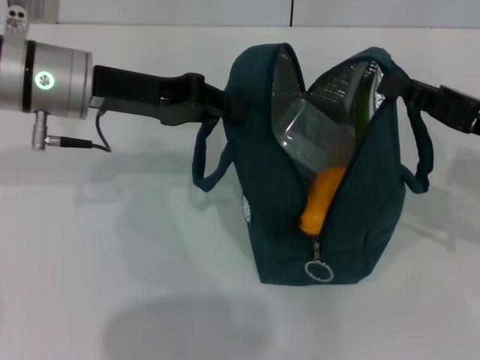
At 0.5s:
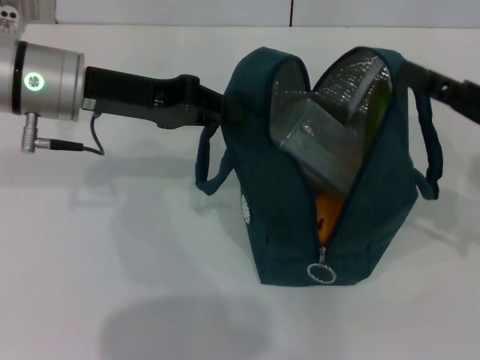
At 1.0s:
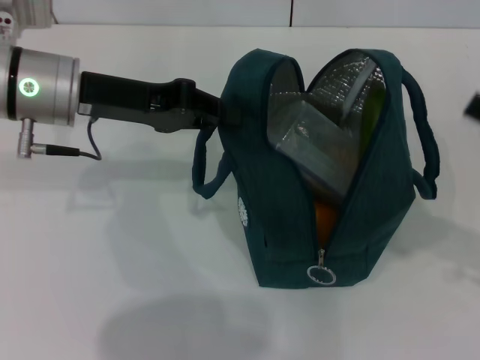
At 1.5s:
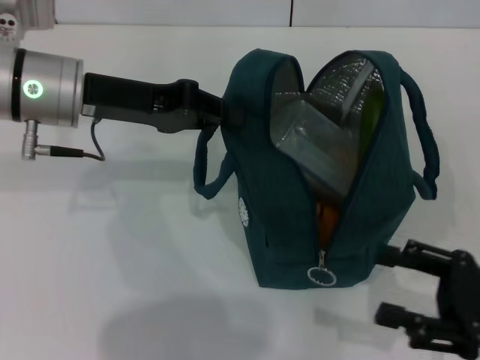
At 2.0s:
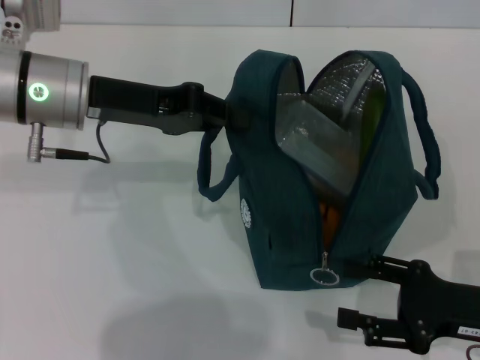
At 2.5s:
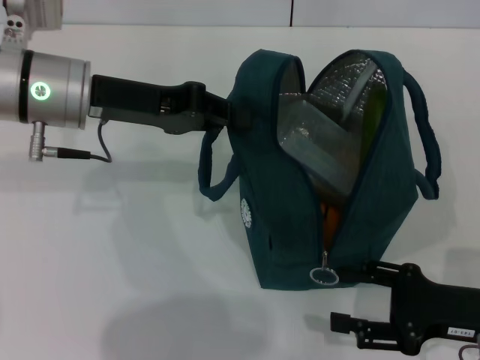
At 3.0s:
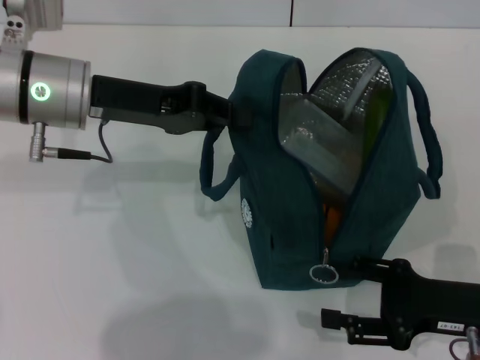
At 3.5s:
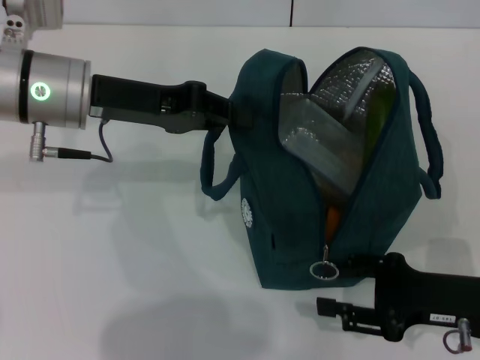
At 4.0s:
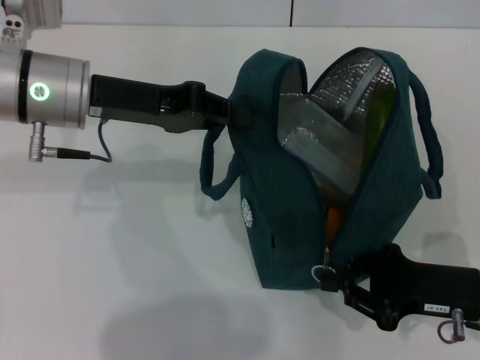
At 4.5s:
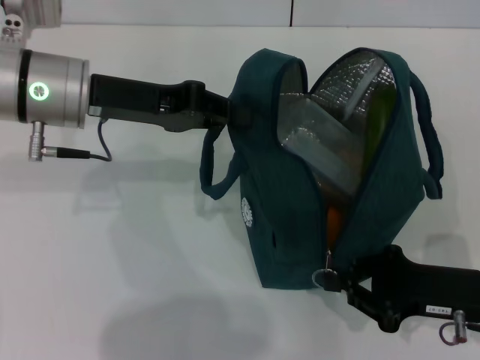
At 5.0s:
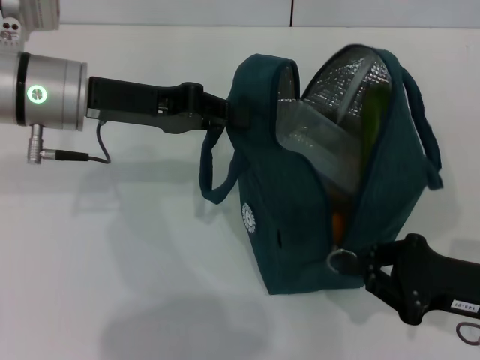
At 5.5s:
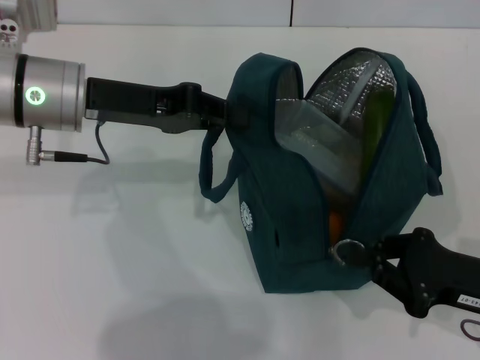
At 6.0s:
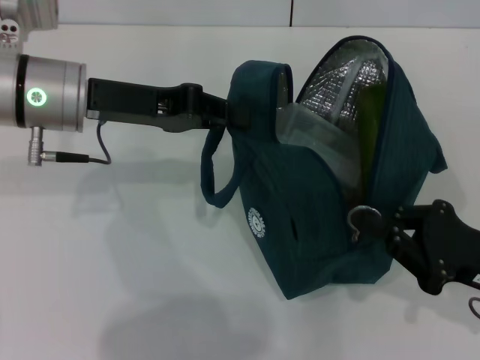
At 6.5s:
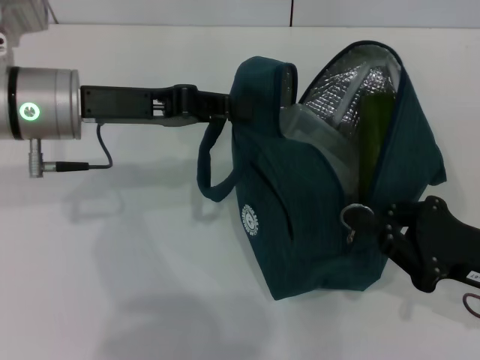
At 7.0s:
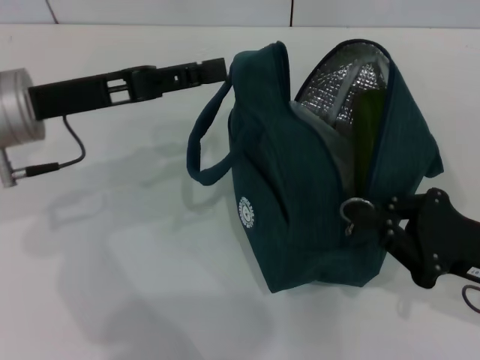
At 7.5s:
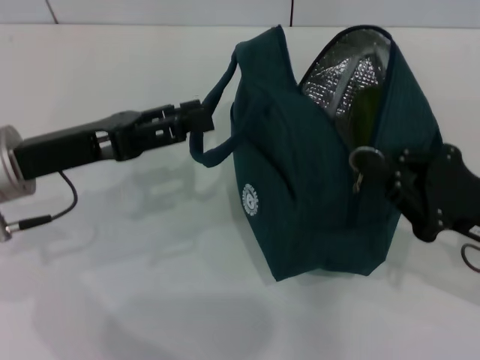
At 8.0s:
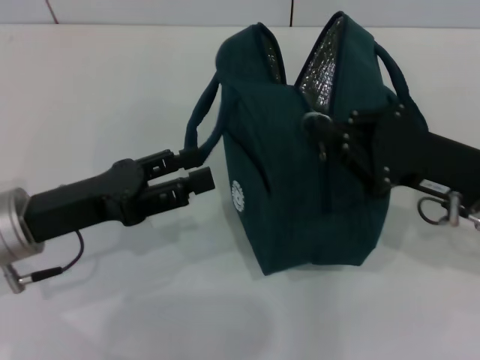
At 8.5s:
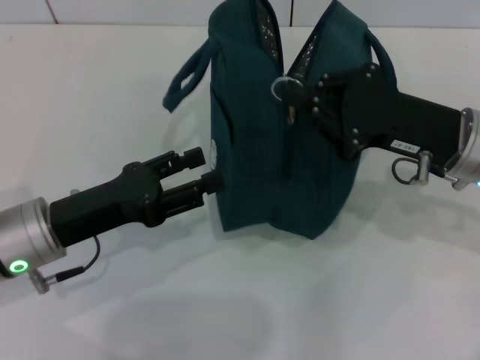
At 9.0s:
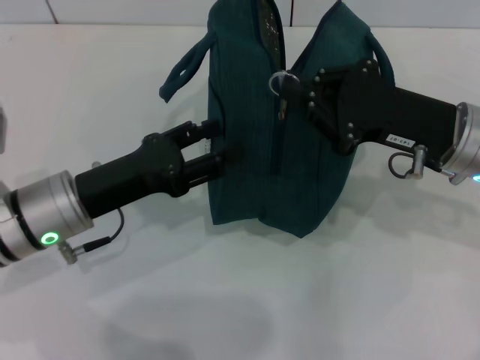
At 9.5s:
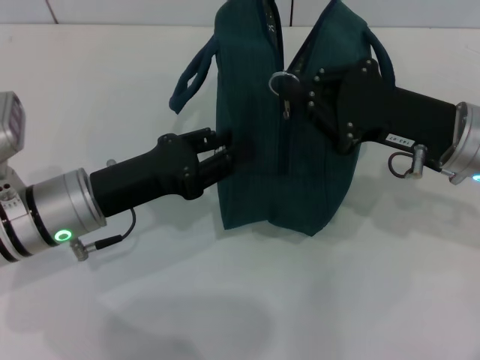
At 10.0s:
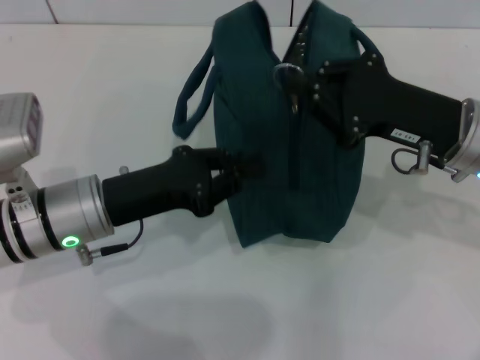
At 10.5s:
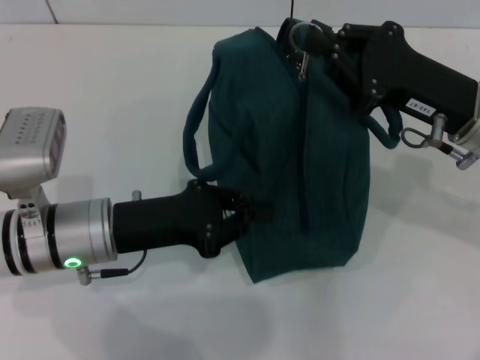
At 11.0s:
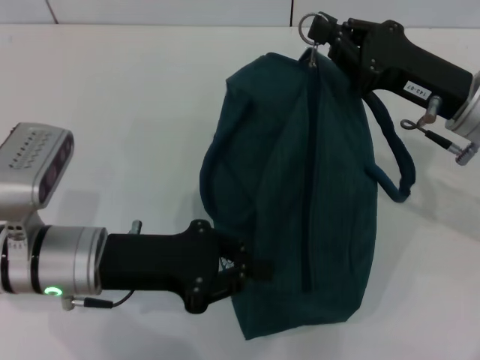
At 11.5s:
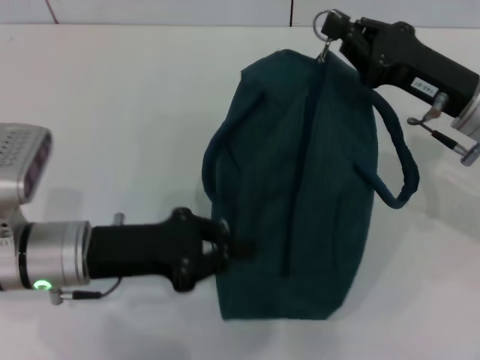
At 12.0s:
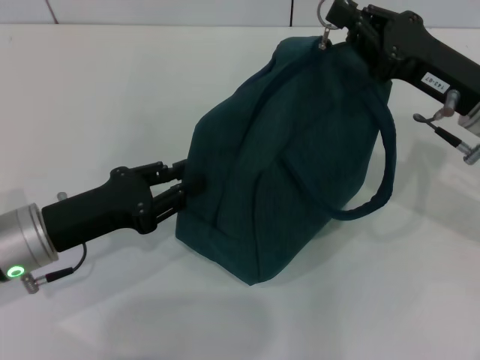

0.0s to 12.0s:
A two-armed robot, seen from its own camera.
Step, 1.0s to 7.0s: Hold the lunch bag with your left hand.
0.0s to 2.0s: The right gripper shifts some 15 cm downward and backward, and opens its fingers.
2.0s to 4.0s: The right gripper closes up.
4.0s to 6.0s: The grippers stay close to where they were, moving slightly.
6.0s to 8.0s: The left gripper is displaced backward and downward by some 15 cm, and opens up, while the right gripper is displaced forward by roughly 5 cm.
8.0s to 10.0s: The left gripper ends up about 5 cm from where it was, and closes its fingers.
10.0s to 12.0s: The left gripper changes place by about 5 cm.

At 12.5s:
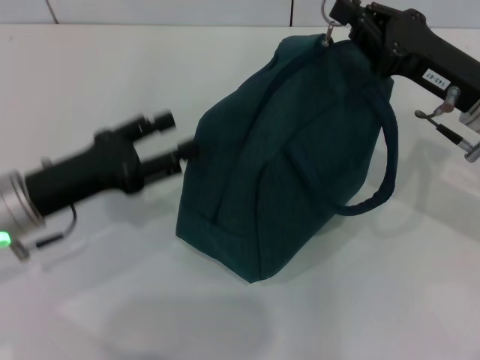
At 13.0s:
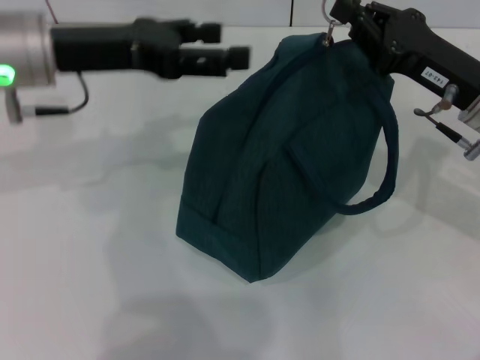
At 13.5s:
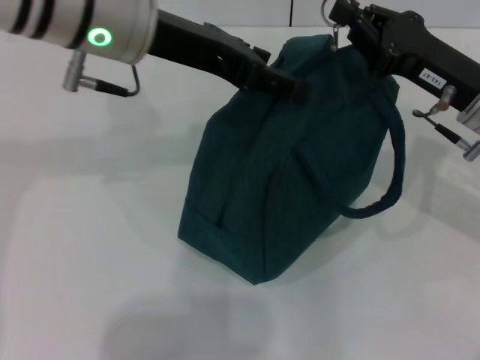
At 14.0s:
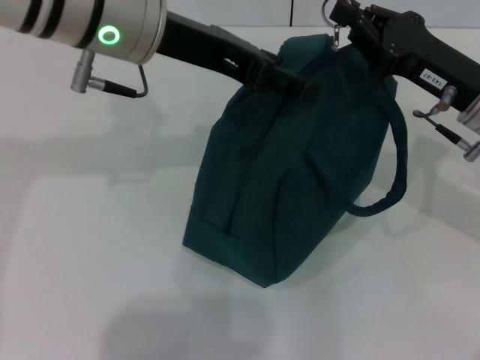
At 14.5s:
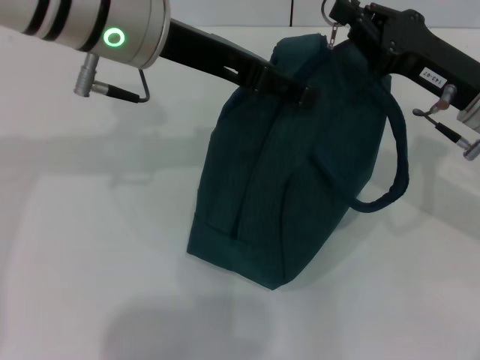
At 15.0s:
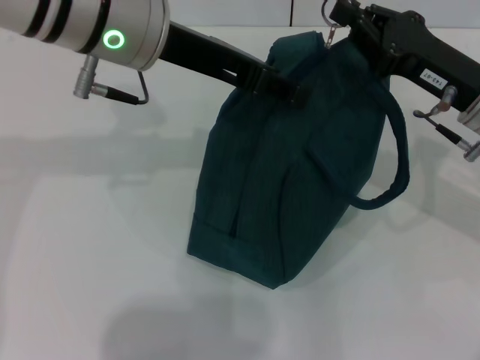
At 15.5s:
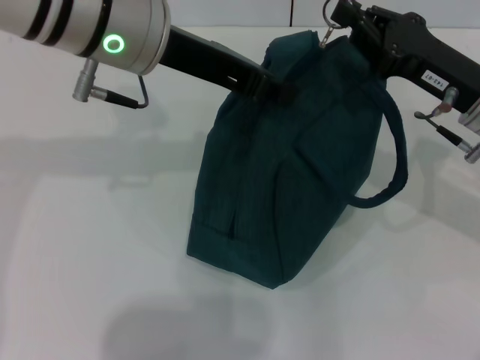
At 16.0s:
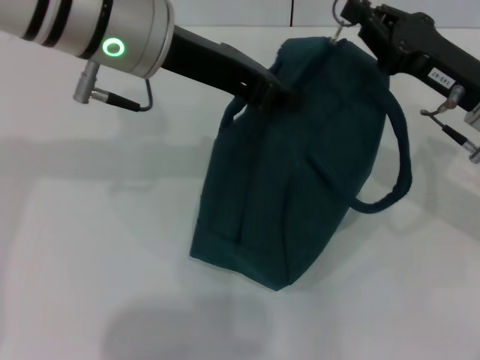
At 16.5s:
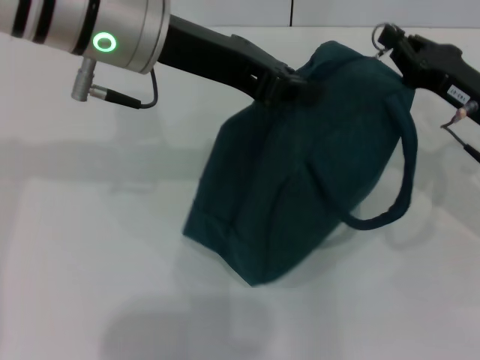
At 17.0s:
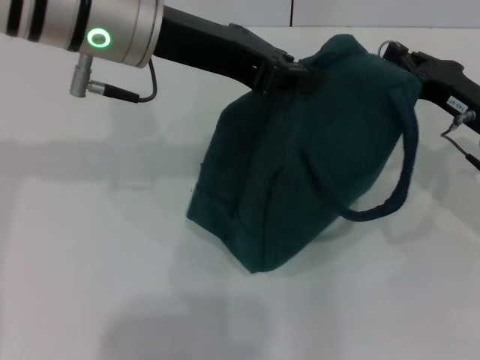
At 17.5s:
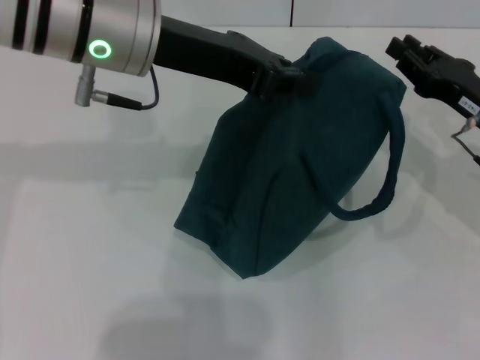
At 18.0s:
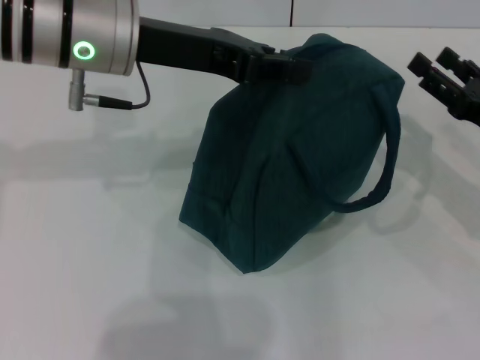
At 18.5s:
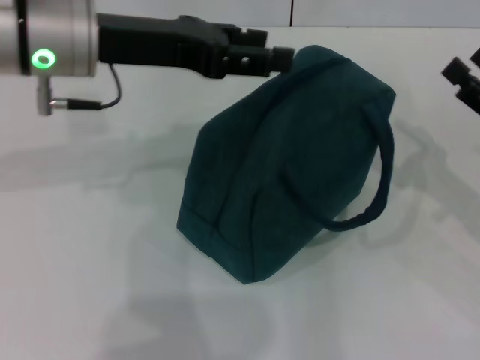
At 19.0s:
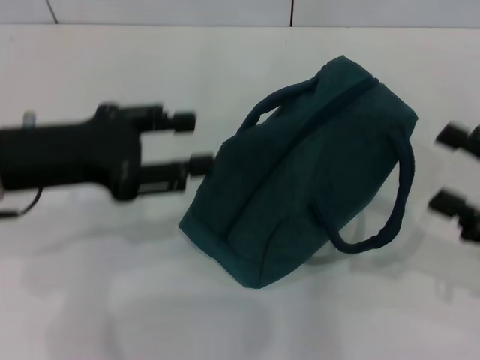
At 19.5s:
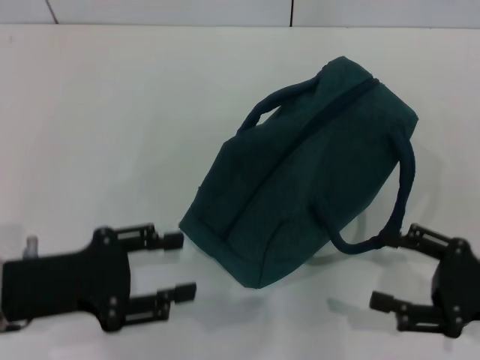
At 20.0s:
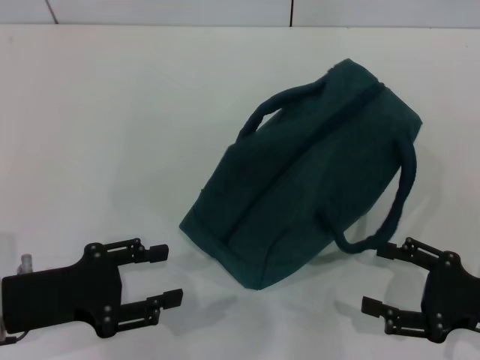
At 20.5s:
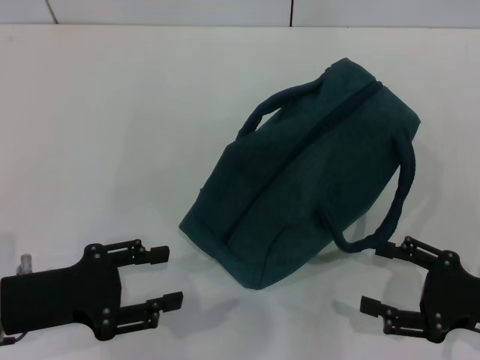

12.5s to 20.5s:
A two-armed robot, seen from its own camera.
Step, 12.5s to 17.0s: Zip up the lunch bag with your right hand.
Step, 17.5s to 18.0s: Hold the lunch bag with your left hand.
12.5s to 14.5s: The left gripper goes roughly 25 cm upward, to the right and forward.
14.5s to 16.5s: The left gripper closes up.
16.5s to 18.5s: The left gripper goes about 5 cm to the left, and opens; the right gripper travels backward and to the right by roughly 10 cm, and opens its fingers.
18.5s to 20.5s: The left gripper moves downward, backward and to the left, some 25 cm; the right gripper shifts roughly 10 cm backward and downward.

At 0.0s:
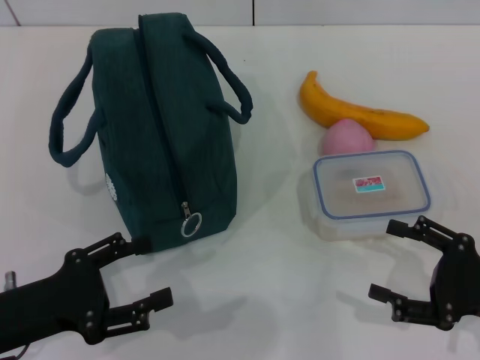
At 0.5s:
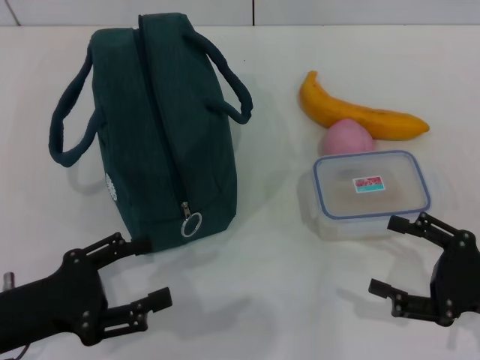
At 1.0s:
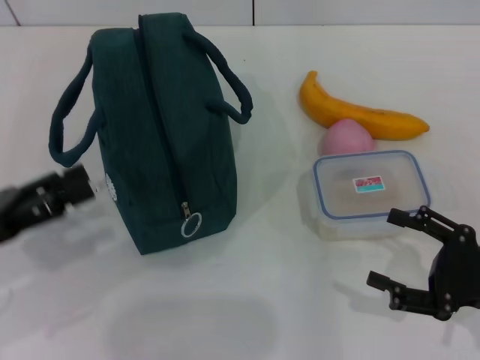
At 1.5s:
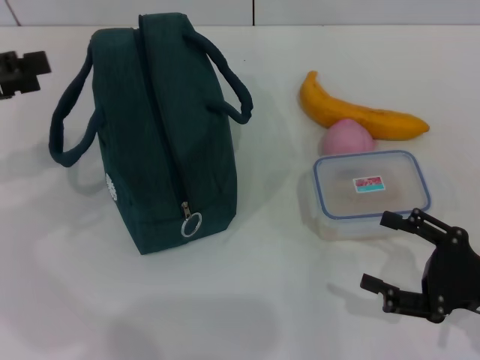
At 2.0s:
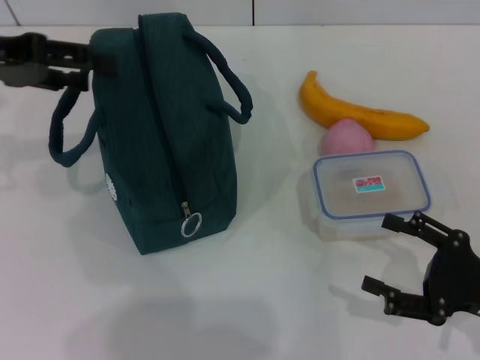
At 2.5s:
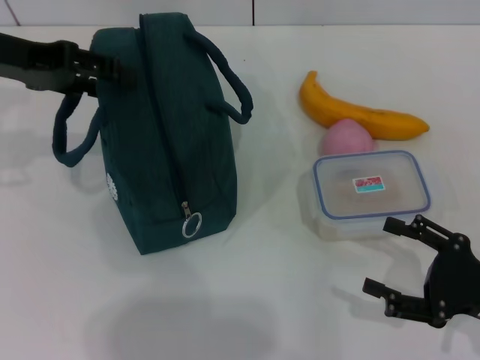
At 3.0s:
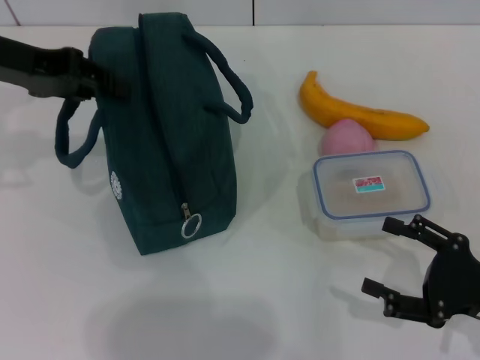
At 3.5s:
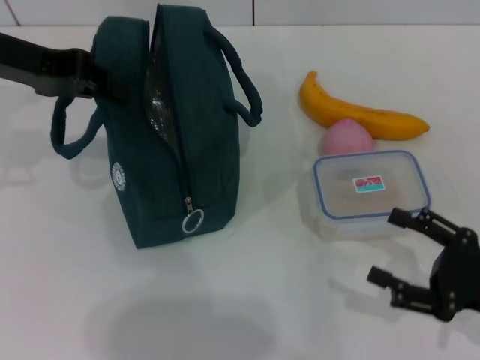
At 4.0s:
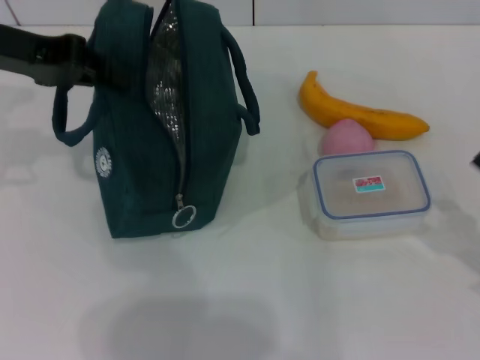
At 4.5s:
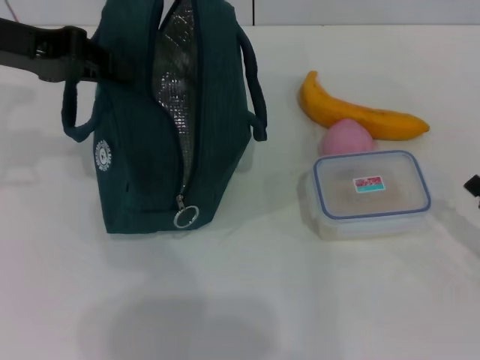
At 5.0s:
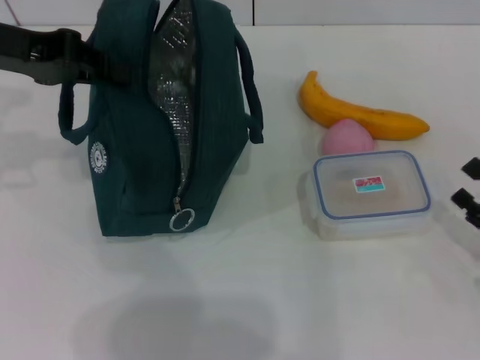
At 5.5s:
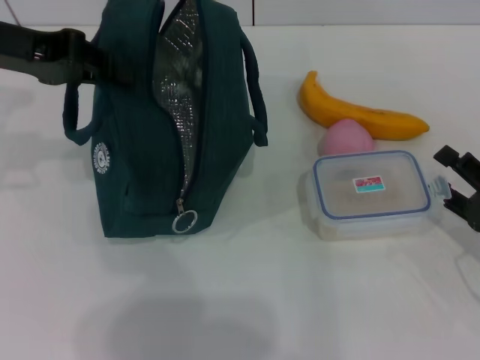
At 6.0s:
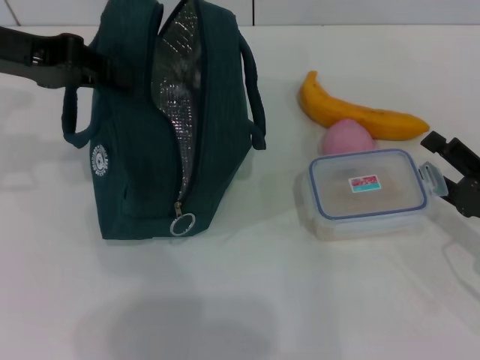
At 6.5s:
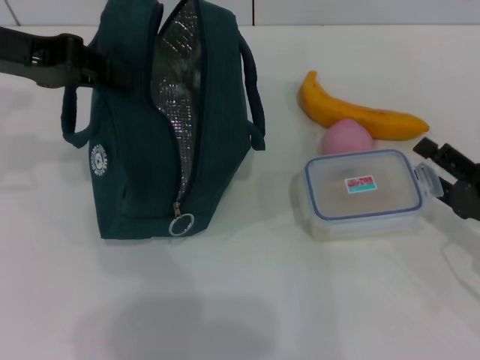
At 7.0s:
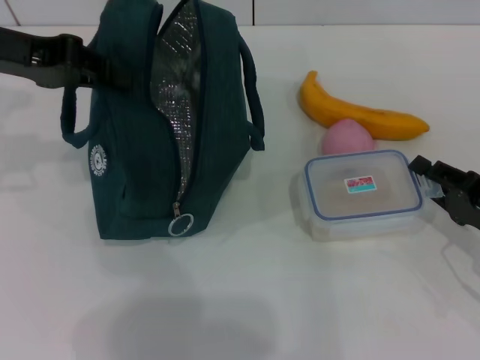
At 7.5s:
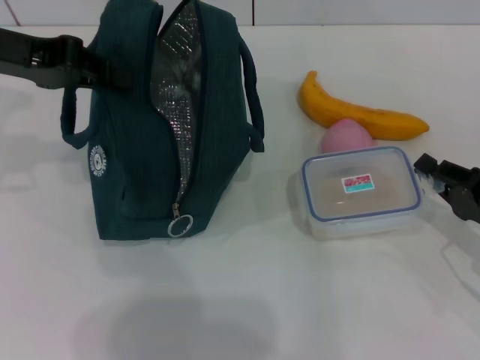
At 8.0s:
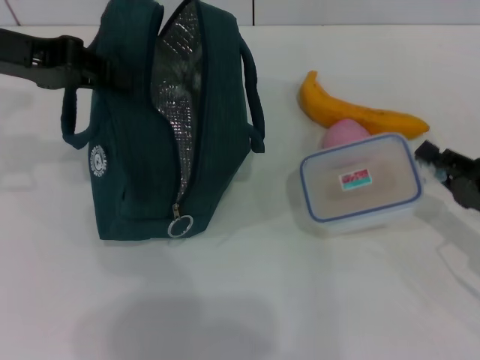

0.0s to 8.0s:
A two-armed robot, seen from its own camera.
Step, 0.0s to 4.0s: Hold the lunch bag with your left hand.
Step, 4.5s to 7.0s: Pick up the lunch box with your right hand.
0.0s to 2.0s: The left gripper goes about 25 cm forward and upward.
2.0s to 4.0s: The left gripper closes its fingers.
4.0s to 6.0s: The right gripper shifts by approximately 5 cm.
6.0s to 8.0s: The right gripper closes.
